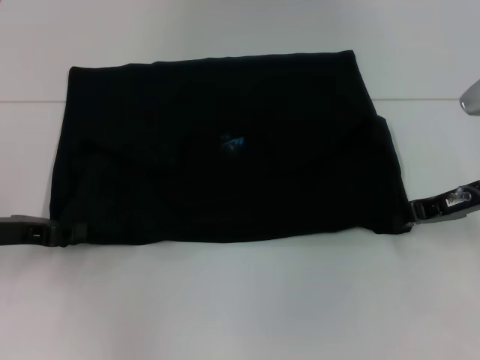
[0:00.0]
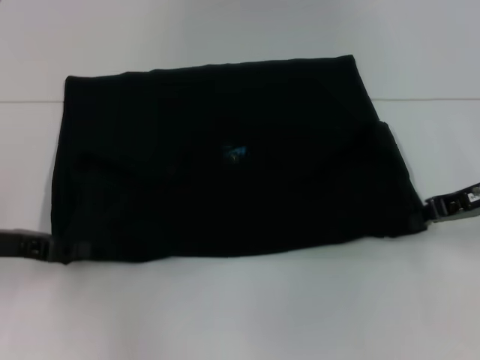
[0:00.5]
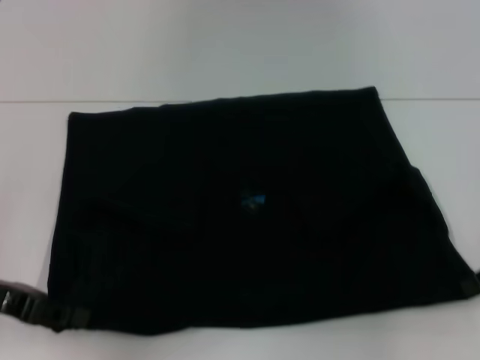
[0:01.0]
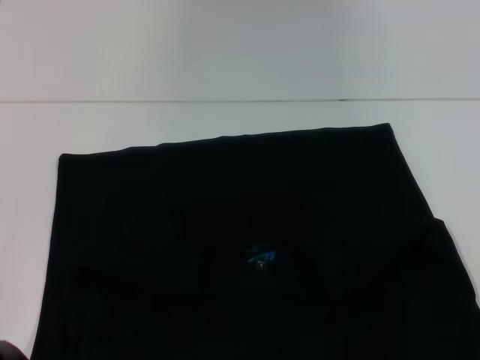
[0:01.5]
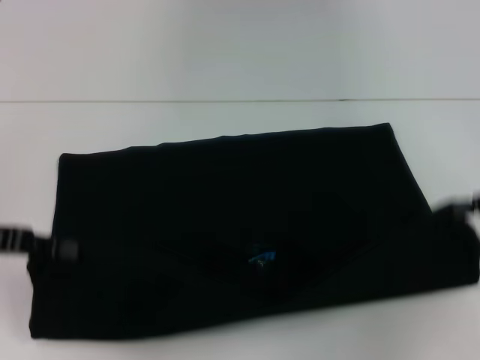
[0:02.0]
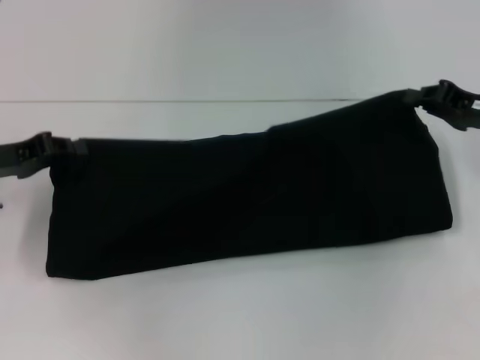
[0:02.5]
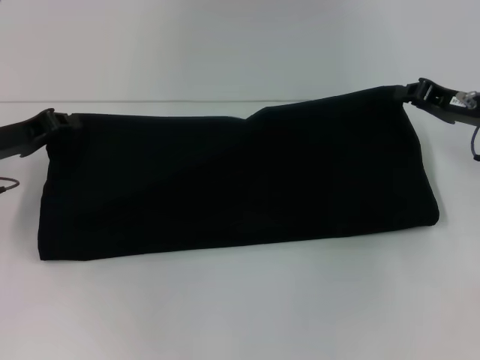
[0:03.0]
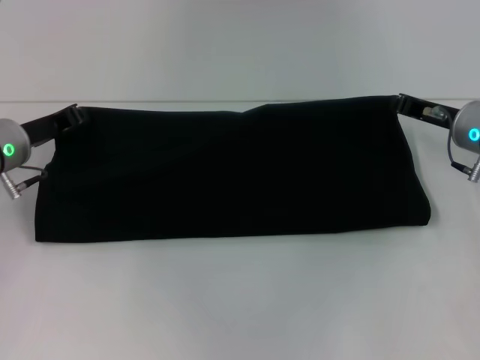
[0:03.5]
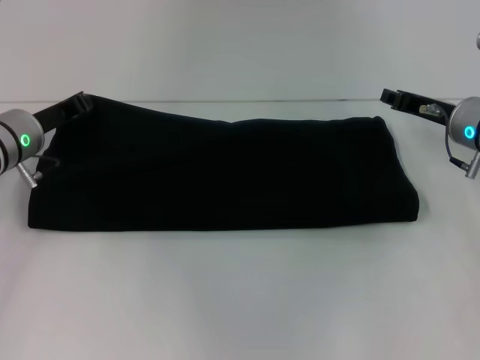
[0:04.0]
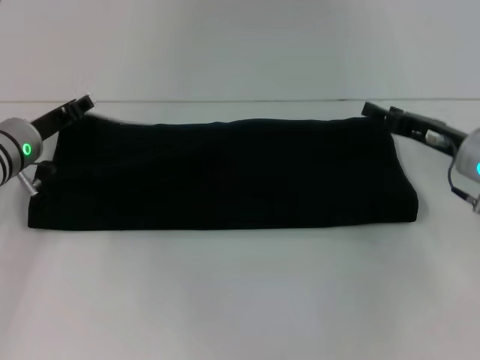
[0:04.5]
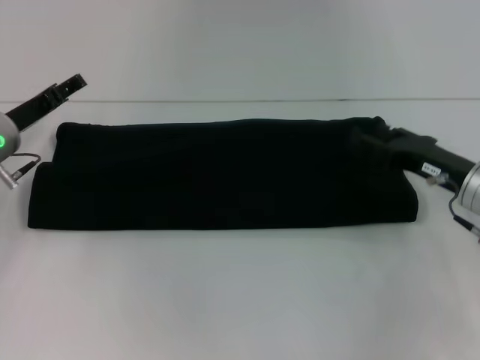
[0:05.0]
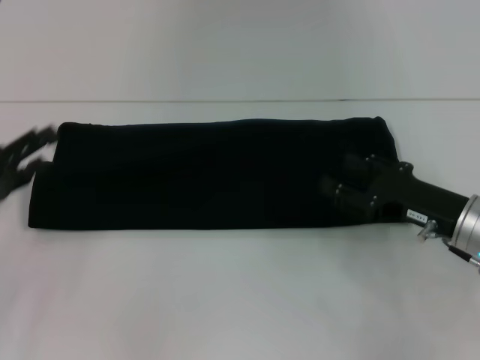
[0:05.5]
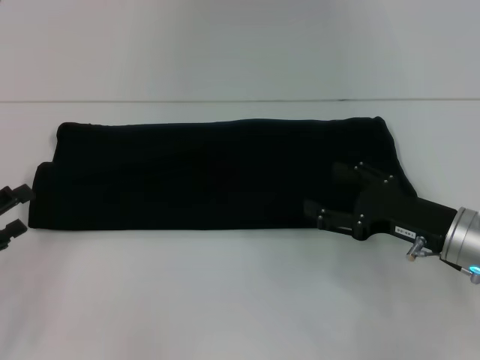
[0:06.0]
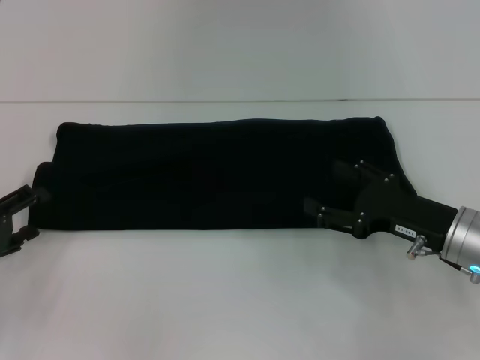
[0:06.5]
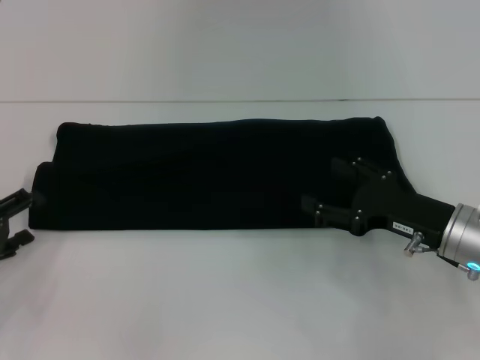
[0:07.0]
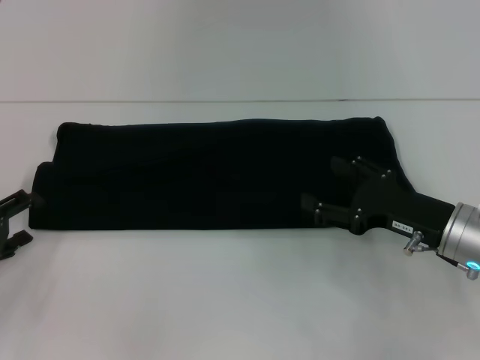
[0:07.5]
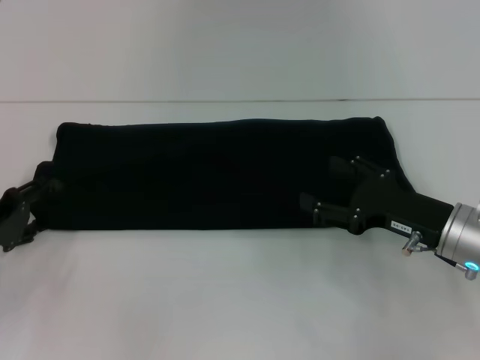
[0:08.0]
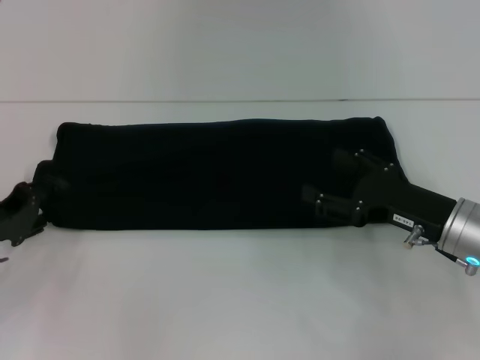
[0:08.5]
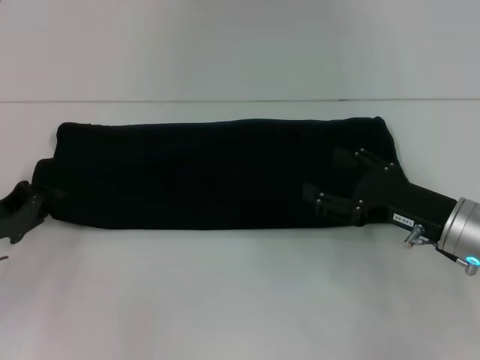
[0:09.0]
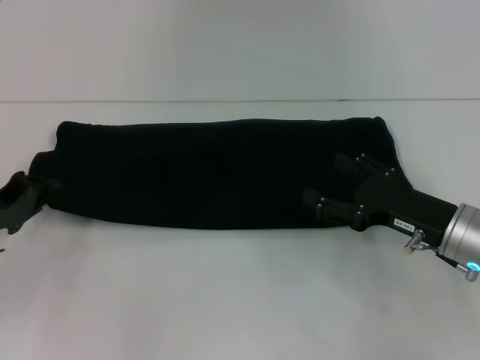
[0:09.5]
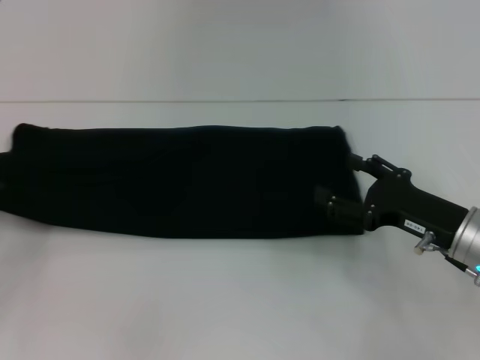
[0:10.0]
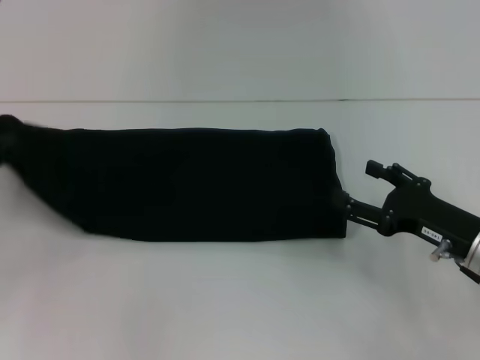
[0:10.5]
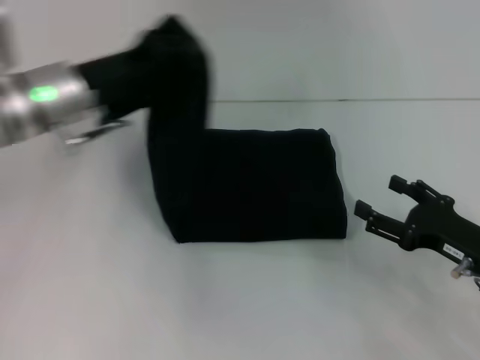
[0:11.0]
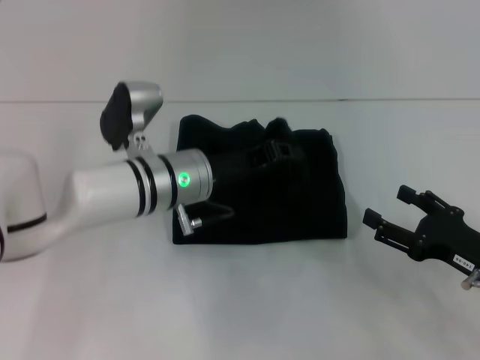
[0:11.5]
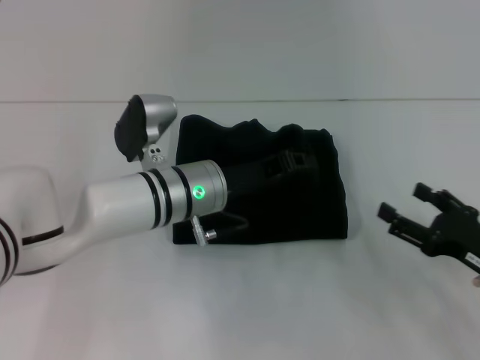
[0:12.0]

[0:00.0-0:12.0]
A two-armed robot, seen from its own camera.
Step, 0:01.5 to 0:04.5: Fold the clothes with your right hand.
0:00.0 to 0:02.0: The right gripper travels to the right and backward by about 10 cm; the left gripper moves some 5 cm.
0:02.0 to 0:04.0: The right gripper shifts roughly 15 cm to the left, forward and downward. Meanwhile the left gripper moves forward and to the right, roughly 15 cm.
0:04.0 to 0:06.0: The left gripper travels backward and to the left by some 20 cm, and opens. The right gripper is displaced backward by some 10 cm, and opens its fingers.
0:06.0 to 0:08.0: The left gripper heads forward, covering some 5 cm.
0:08.0 to 0:10.0: The left gripper closes its fingers.
0:10.0 to 0:12.0: The left gripper heads to the right, covering approximately 30 cm. The right gripper shifts by some 5 cm.

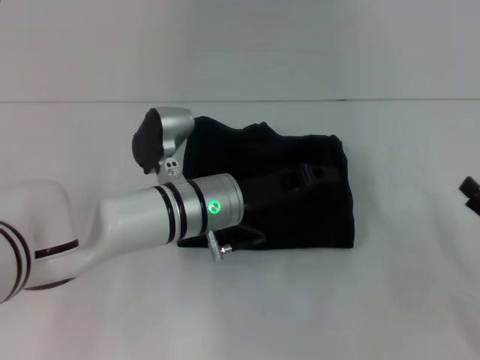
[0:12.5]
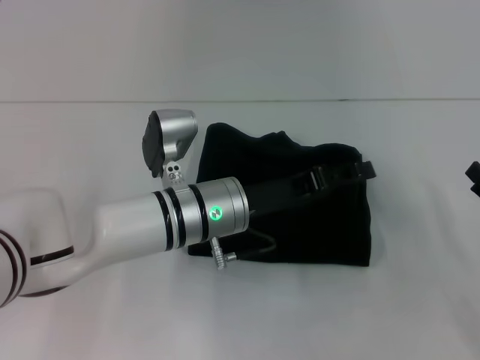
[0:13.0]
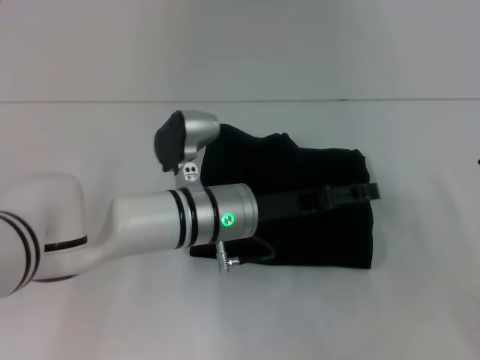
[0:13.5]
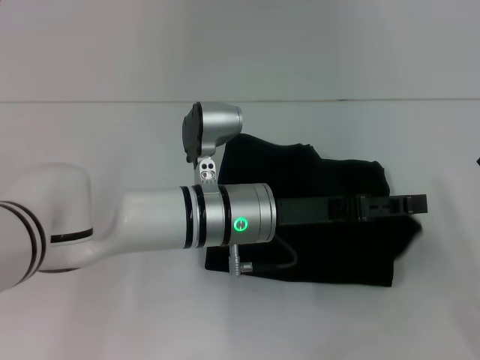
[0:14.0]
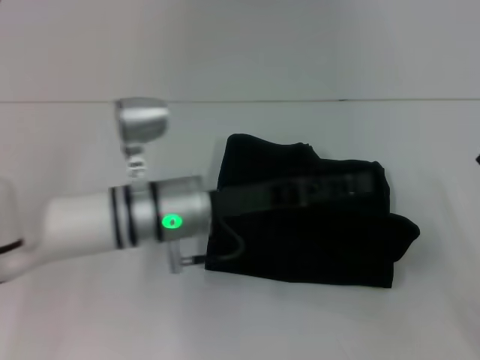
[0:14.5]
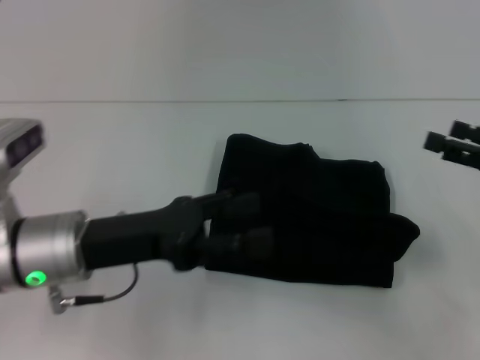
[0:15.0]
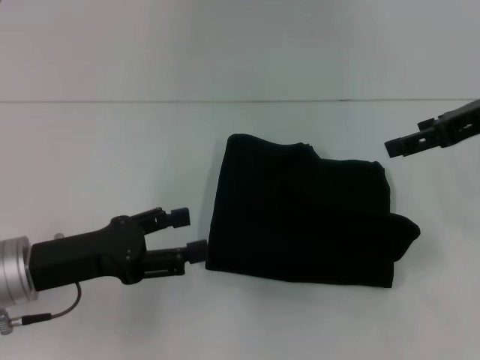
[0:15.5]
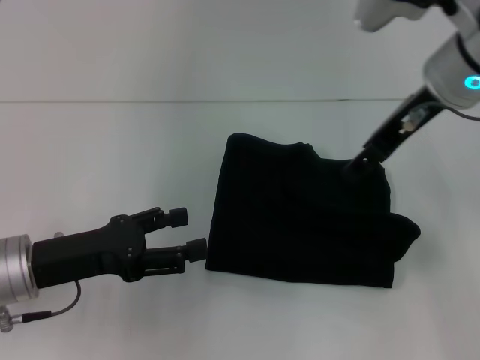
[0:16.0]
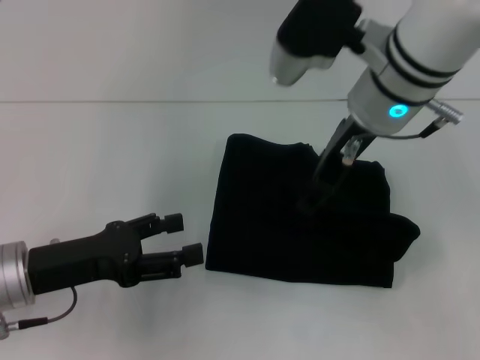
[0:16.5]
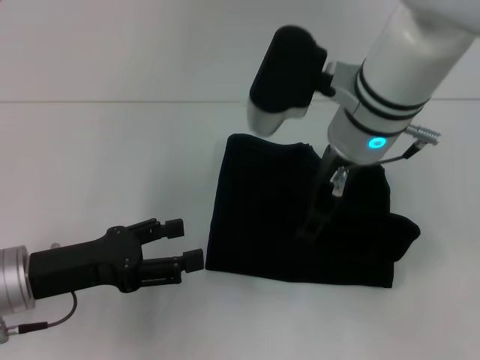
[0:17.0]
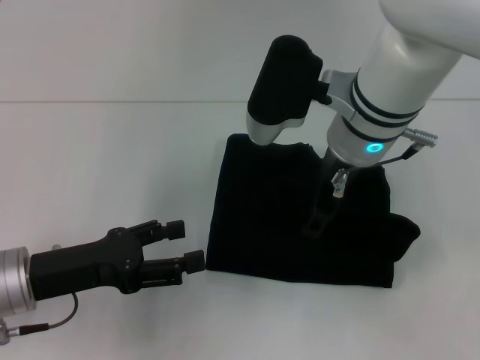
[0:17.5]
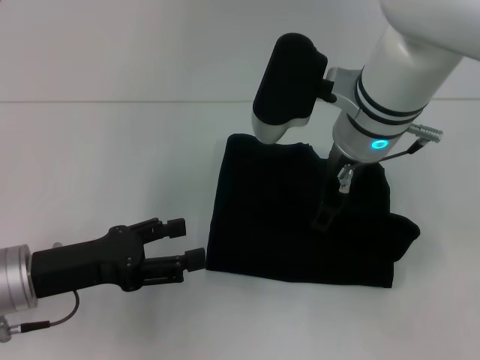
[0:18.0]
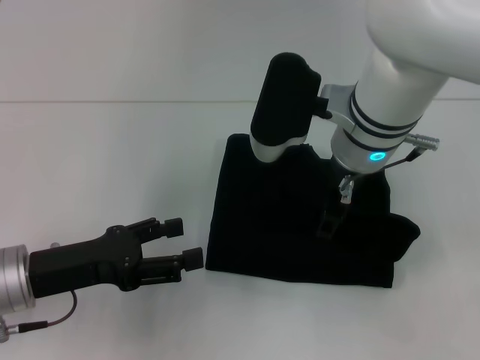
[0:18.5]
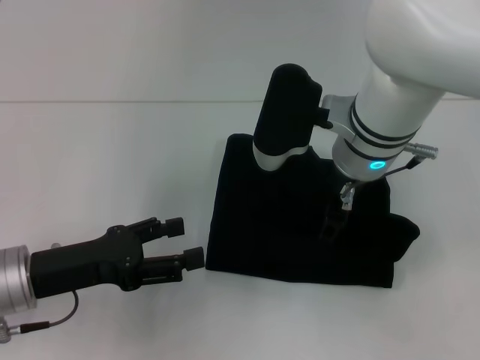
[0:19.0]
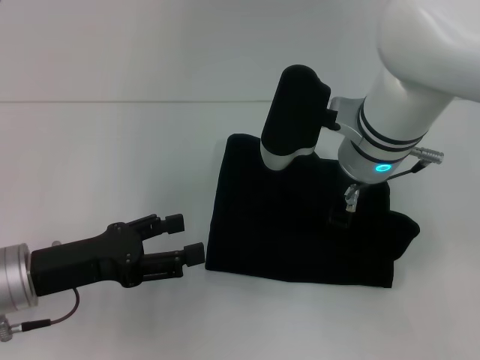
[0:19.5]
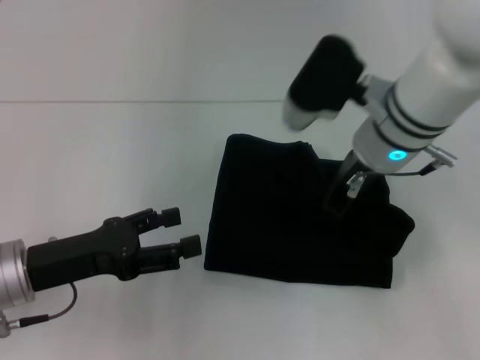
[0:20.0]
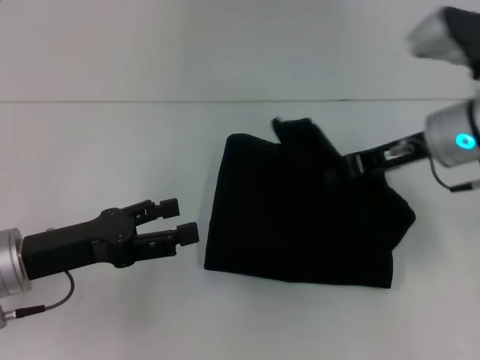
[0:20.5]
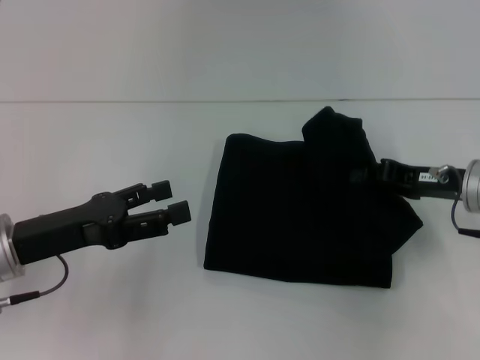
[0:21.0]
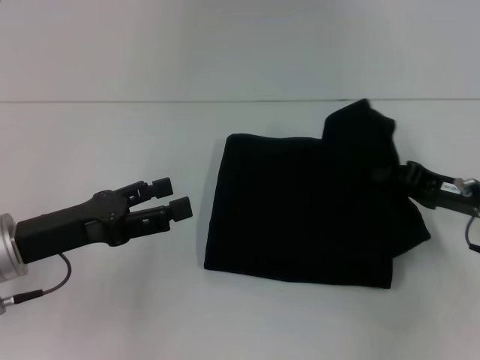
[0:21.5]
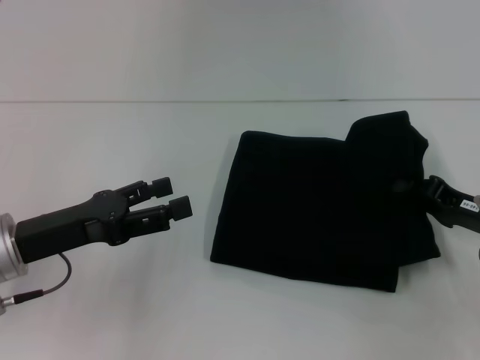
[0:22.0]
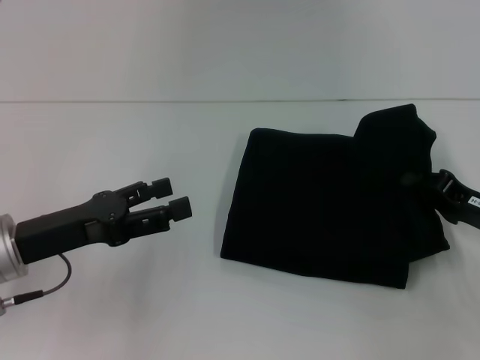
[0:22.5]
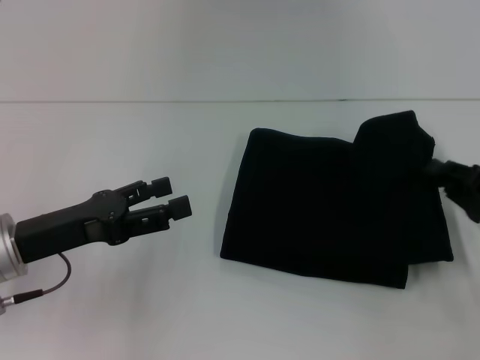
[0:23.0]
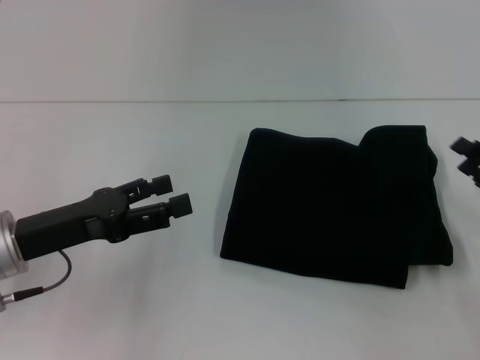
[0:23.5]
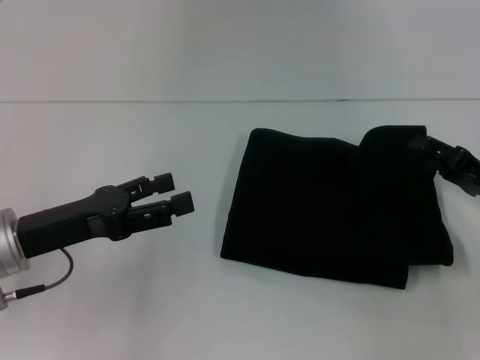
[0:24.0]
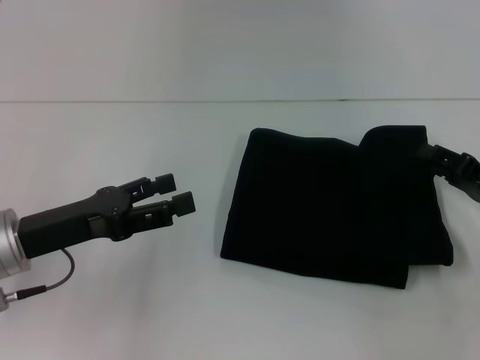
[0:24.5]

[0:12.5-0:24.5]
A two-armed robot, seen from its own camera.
0:12.5 to 0:14.5: The left gripper opens its fingers.
0:14.5 to 0:16.5: The right gripper is displaced to the left, upward and forward by about 35 cm. Meanwhile the left gripper goes roughly 15 cm to the left and backward.
0:16.5 to 0:18.5: There are only small adjustments of the grippers.
0:18.5 to 0:20.5: The right gripper goes roughly 15 cm to the right, and closes up.
0:20.5 to 0:22.5: The right gripper goes roughly 15 cm downward, to the right and backward.
0:22.5 to 0:24.5: The right gripper opens its fingers.

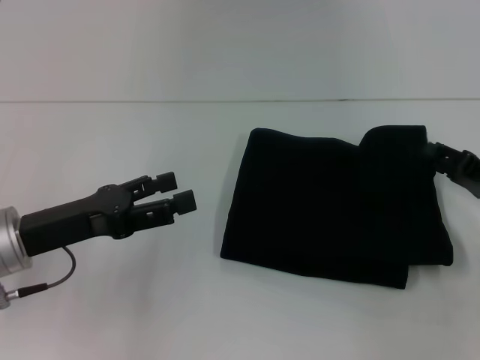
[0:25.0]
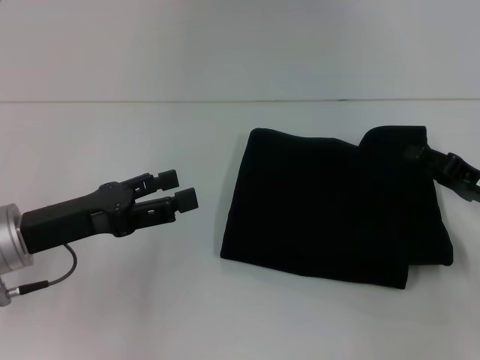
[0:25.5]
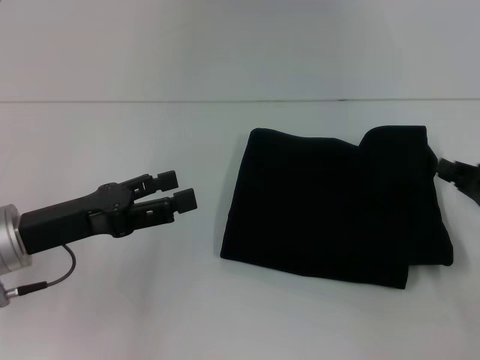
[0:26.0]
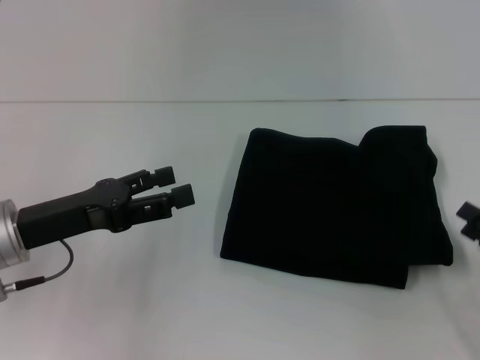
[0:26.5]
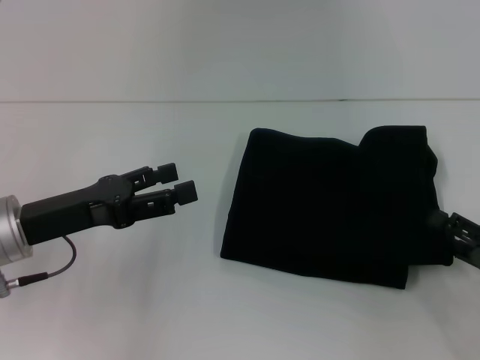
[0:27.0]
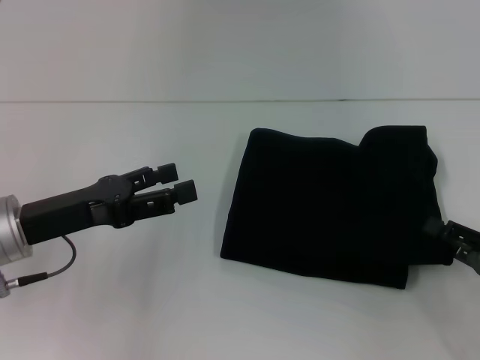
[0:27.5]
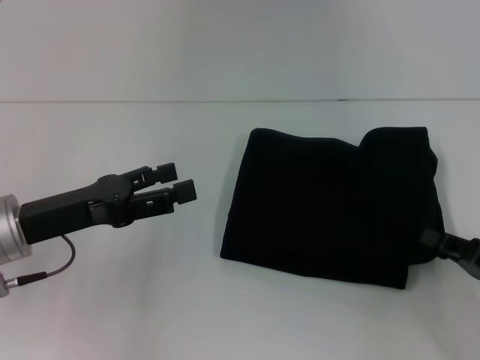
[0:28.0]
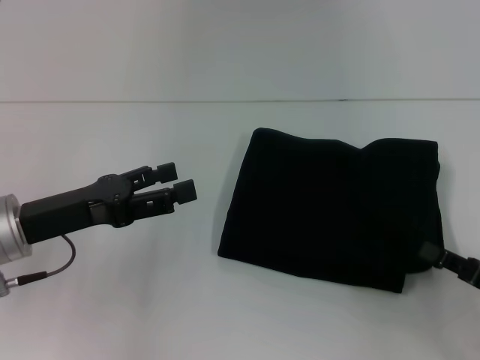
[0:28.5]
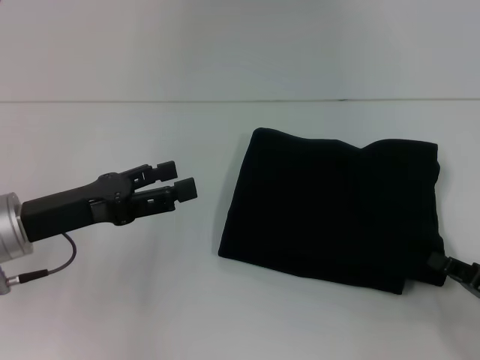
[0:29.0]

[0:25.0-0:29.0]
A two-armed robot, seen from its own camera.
0:25.0 to 0:27.0: The right gripper travels backward by roughly 10 cm.
0:27.0 to 0:29.0: The right gripper closes.
